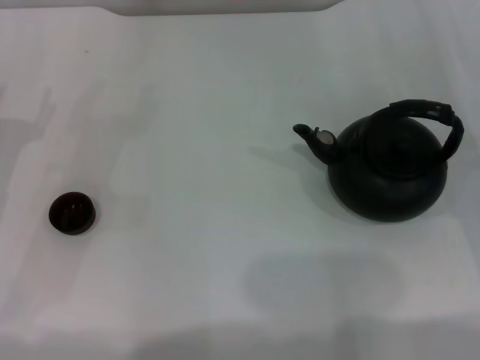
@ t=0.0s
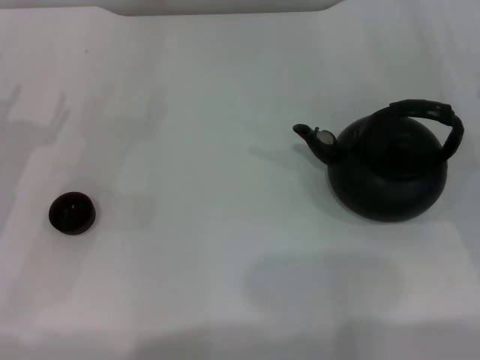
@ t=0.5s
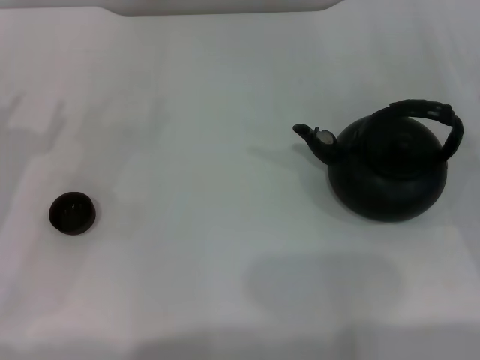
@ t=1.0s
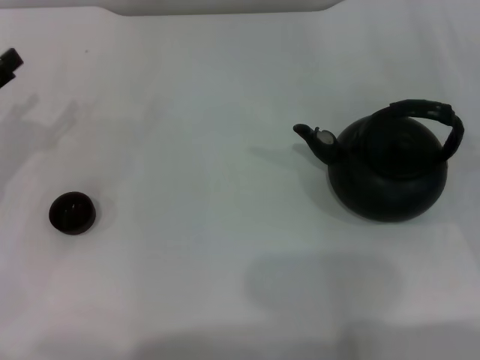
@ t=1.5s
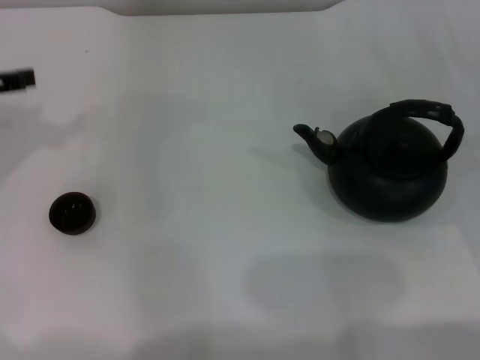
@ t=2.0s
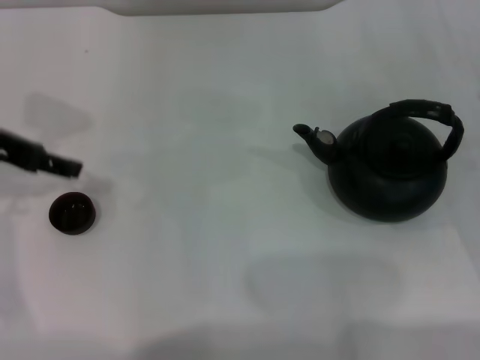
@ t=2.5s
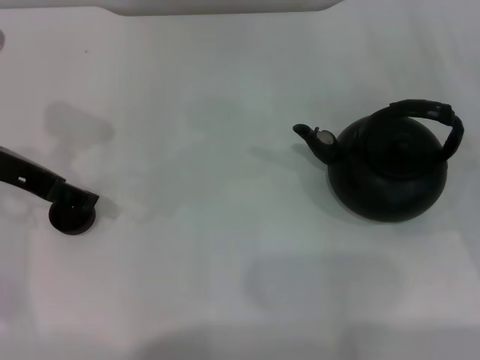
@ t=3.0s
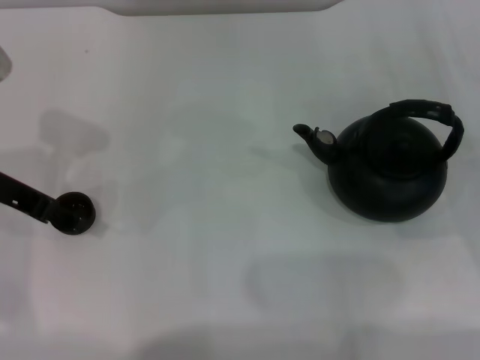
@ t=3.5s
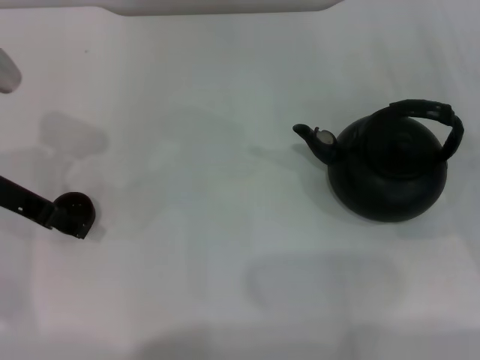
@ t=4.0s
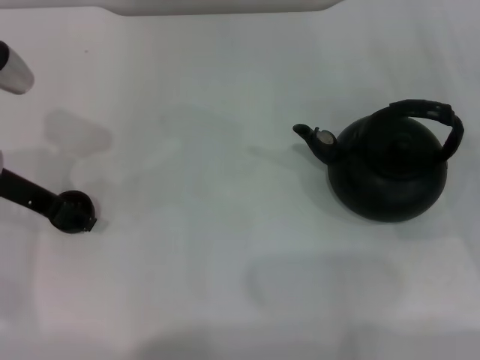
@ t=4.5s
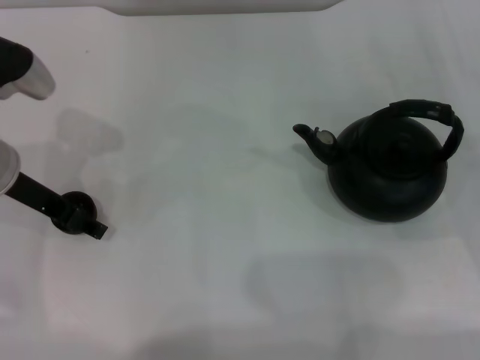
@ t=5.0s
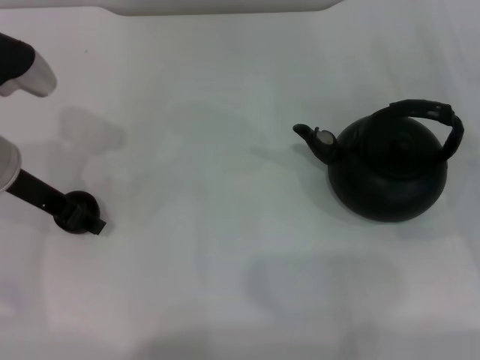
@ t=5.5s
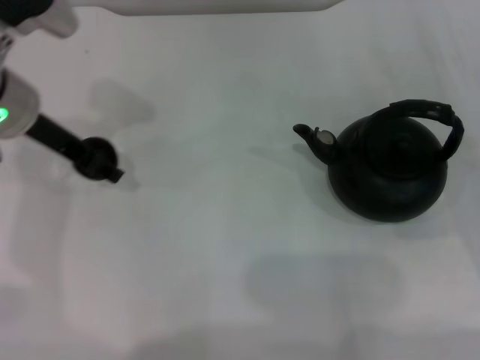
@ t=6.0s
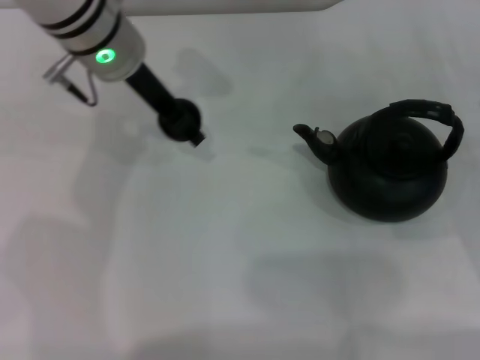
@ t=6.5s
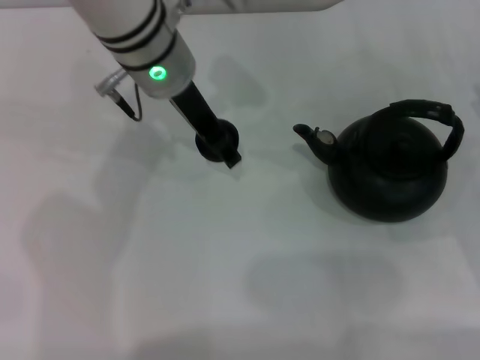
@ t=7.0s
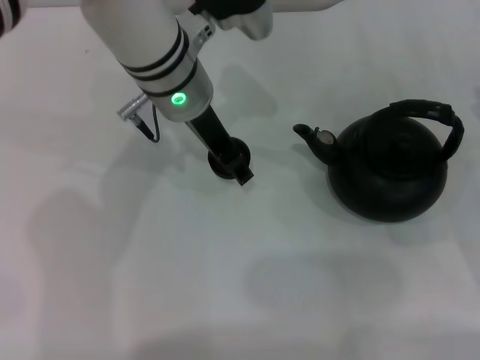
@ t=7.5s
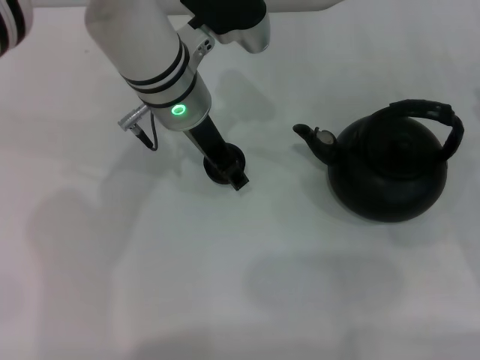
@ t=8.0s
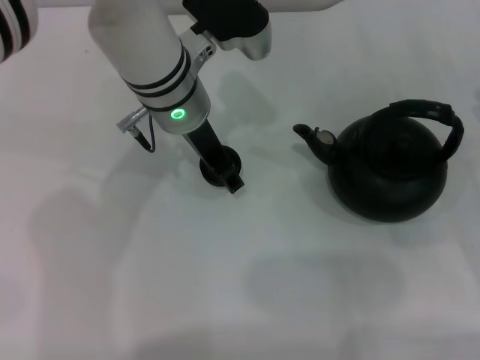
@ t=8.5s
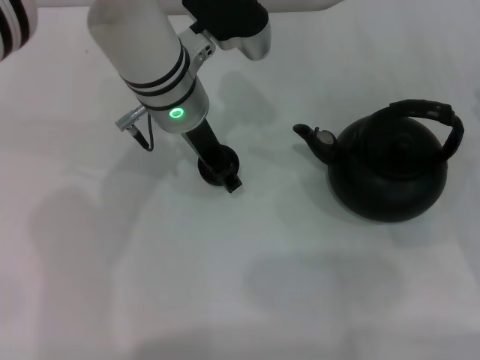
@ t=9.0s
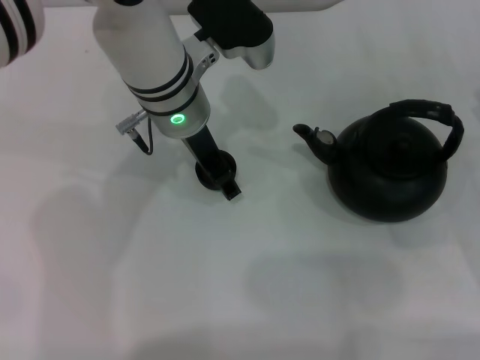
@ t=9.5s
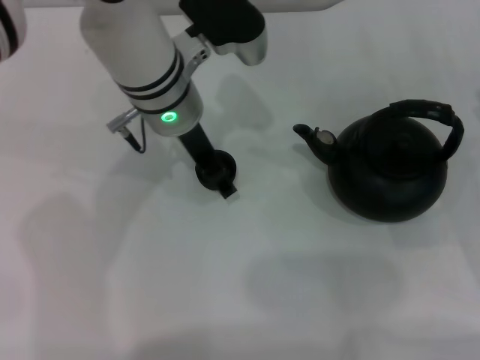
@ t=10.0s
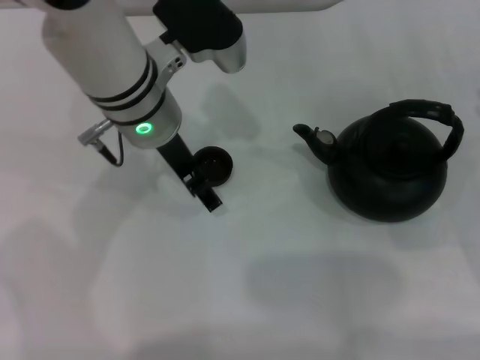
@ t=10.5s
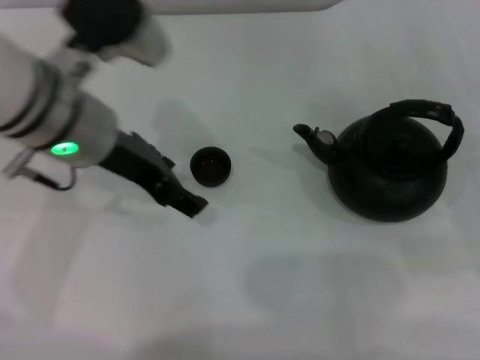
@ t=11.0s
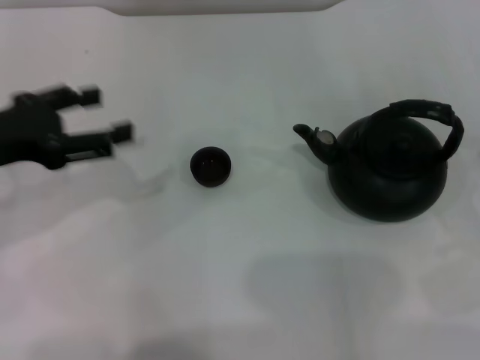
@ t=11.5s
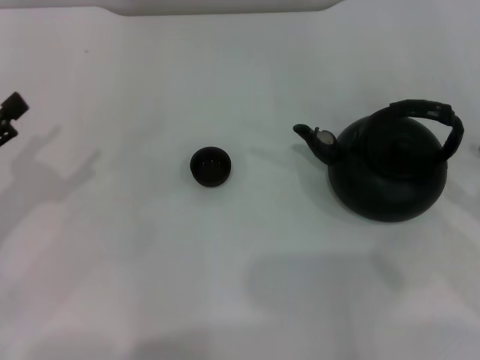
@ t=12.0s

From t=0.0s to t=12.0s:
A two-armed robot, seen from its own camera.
Task of the whole recording: Grasp the handle of the teapot with one hand and pour tea into the teacup.
Step, from t=0.0s to t=5.5s: Pick up the teacup with the left gripper.
Step, from t=6.5s to t=10.0s: Place the teacup in the center of view with the left gripper.
From t=2.0s to t=4.0s: The left gripper shifts about 10 cm to the right, and opens its fingers.
From t=4.0s to t=6.0s: The left gripper changes place by some 5 cm, and closes its fingers.
From t=6.0s to t=8.0s: The left gripper is displaced to the right by some 15 cm.
From t=8.0s to t=10.0s: The left gripper opens up.
From t=10.0s to t=12.0s: The right gripper heads backward and upward, covering approximately 10 cm. The left gripper shifts roughly 30 cm to the left and backward.

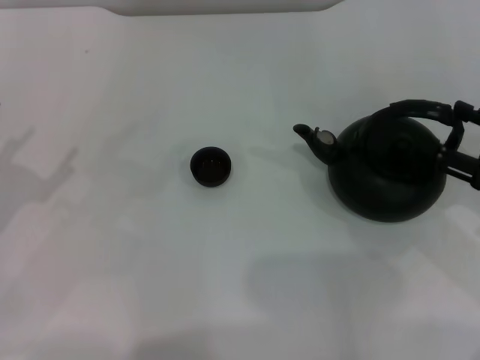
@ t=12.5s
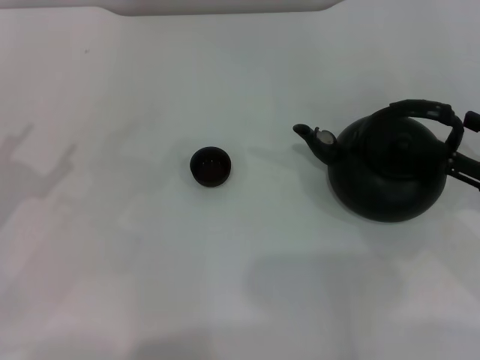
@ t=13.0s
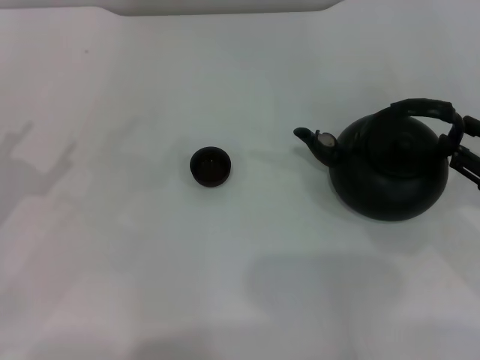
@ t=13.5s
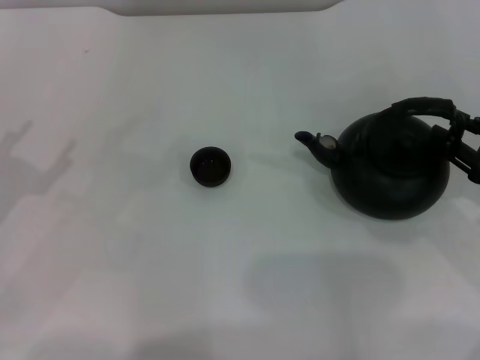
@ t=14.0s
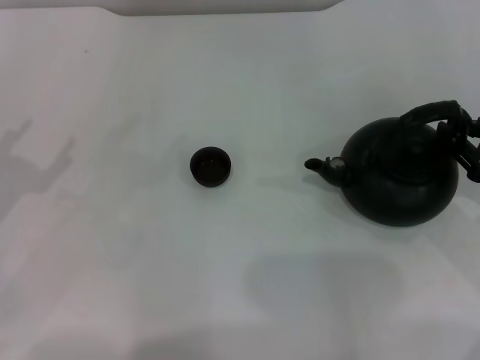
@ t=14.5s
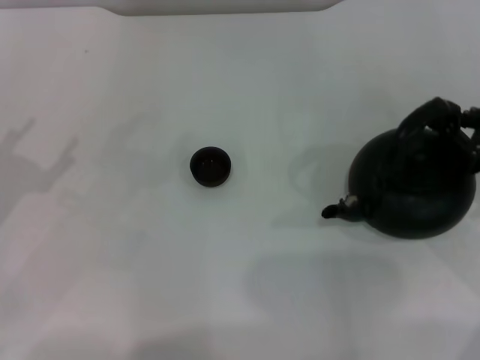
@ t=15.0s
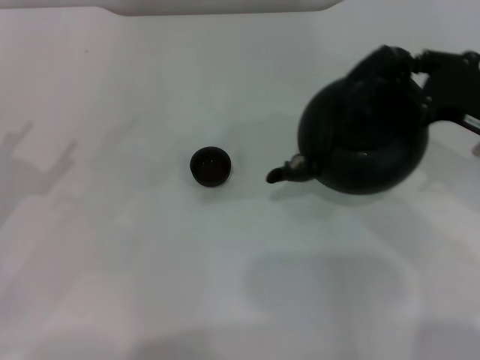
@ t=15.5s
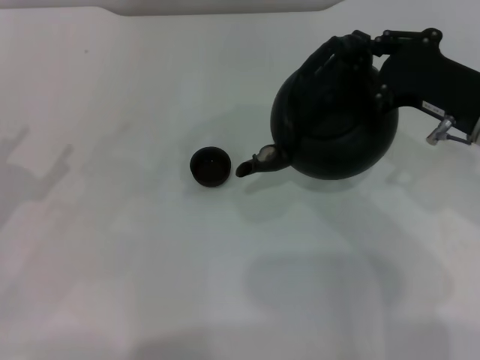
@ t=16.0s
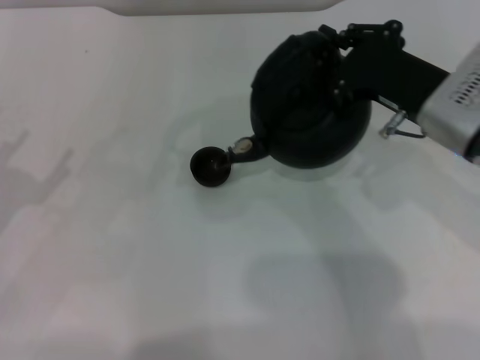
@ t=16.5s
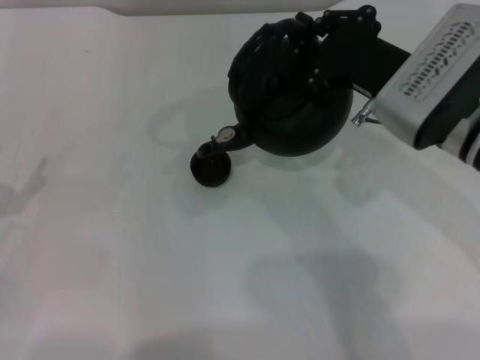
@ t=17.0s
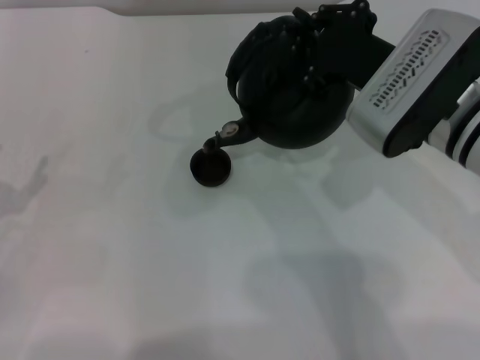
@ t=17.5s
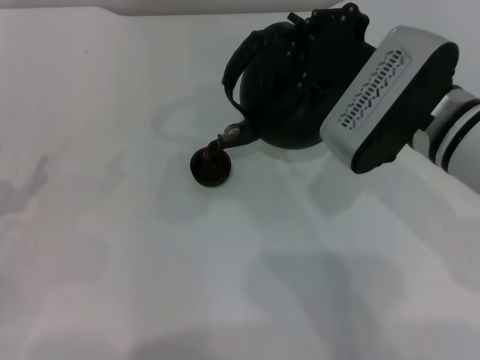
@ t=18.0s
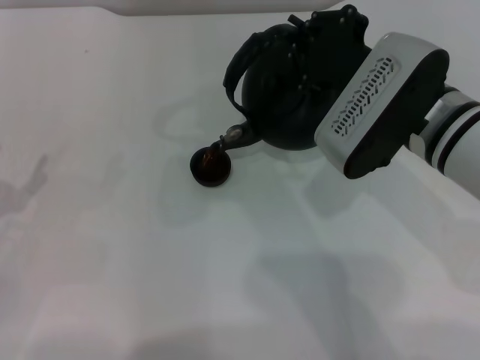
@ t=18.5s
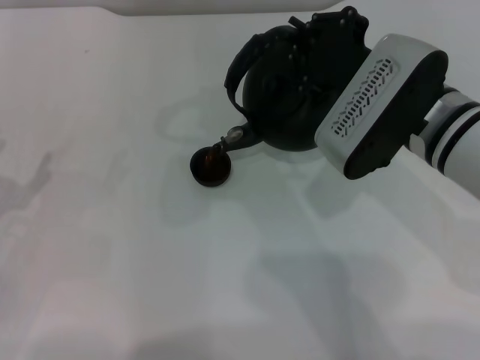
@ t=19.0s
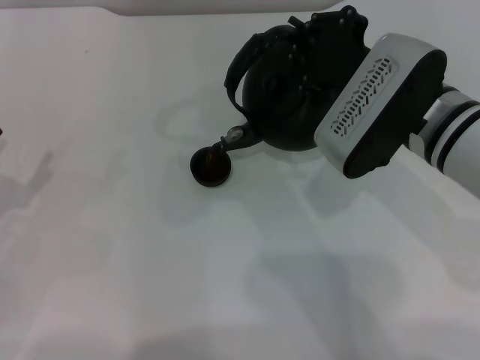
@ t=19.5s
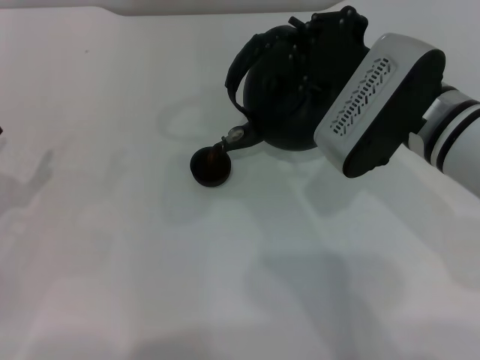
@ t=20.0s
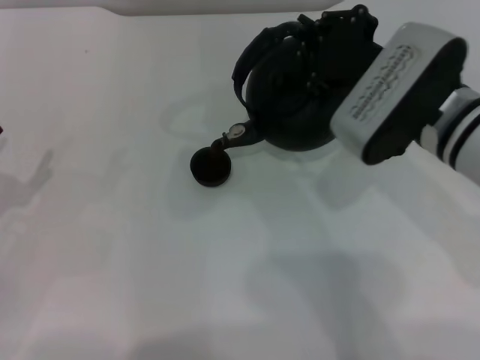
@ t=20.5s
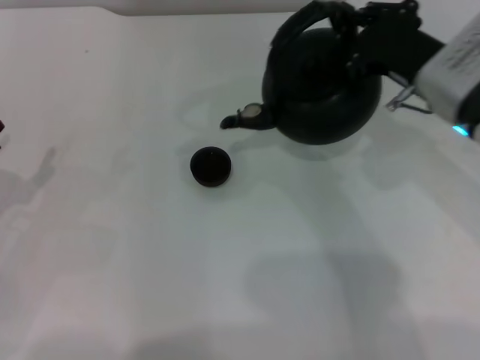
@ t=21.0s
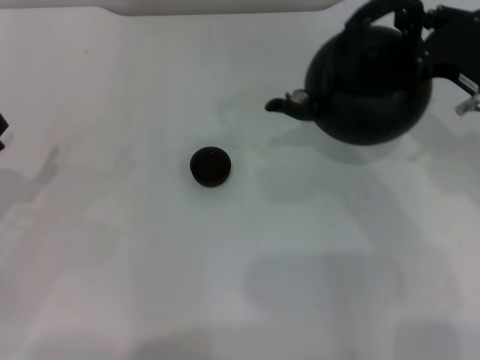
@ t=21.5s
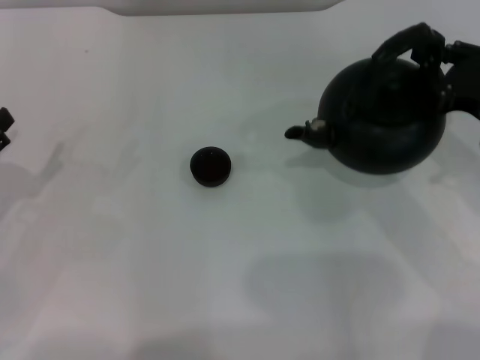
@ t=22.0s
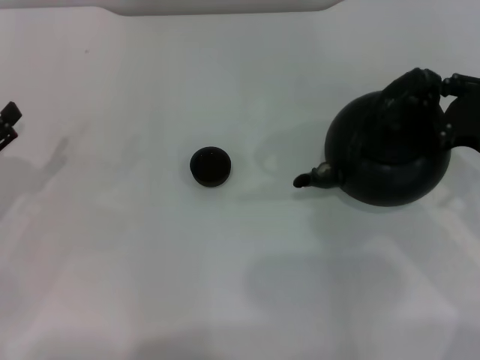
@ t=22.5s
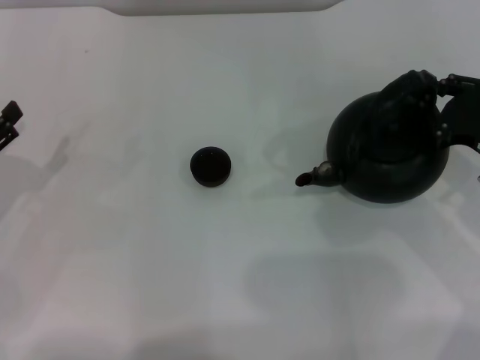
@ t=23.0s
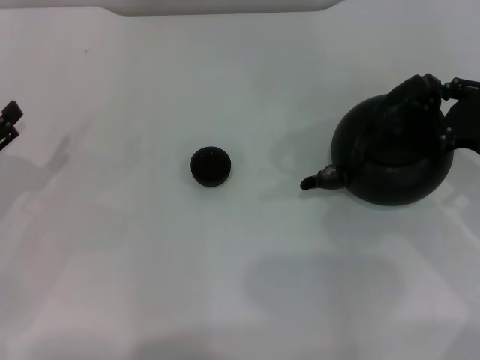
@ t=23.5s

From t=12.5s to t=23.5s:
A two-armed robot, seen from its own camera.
Task of the whole recording: Grasp the handle of the teapot with one hand and pour tea into the teacup.
Step, from t=12.5s to t=15.5s: Pick up the teapot with the right gripper.
Step, from t=16.0s to t=21.0s: Pour tea into the teacup with the right gripper.
From t=12.5s to t=14.5s: The right gripper closes up.
From t=14.5s to t=16.0s: The right gripper shifts some 10 cm to the left and upward.
From t=16.0s to t=18.0s: The right gripper travels to the left by approximately 10 cm.
From t=18.0s to t=20.0s: Both grippers stay put.
From t=20.0s to t=21.5s: The right gripper travels to the right by roughly 10 cm.
From t=21.5s to t=23.5s: The right gripper shifts about 5 cm downward.

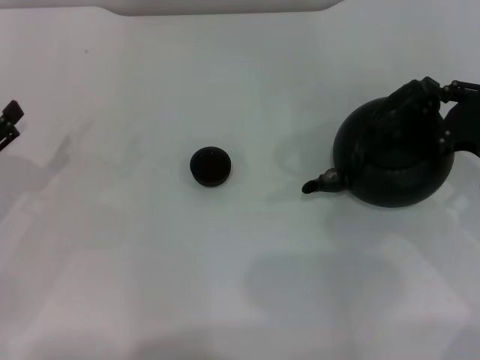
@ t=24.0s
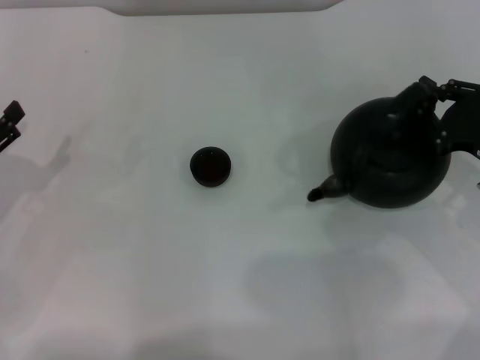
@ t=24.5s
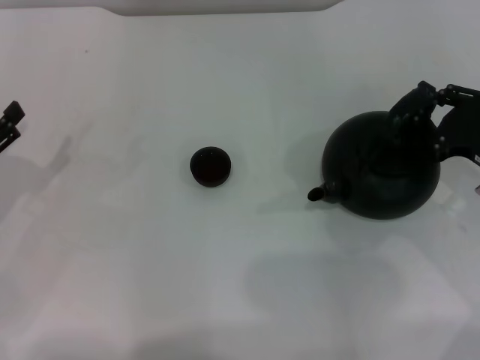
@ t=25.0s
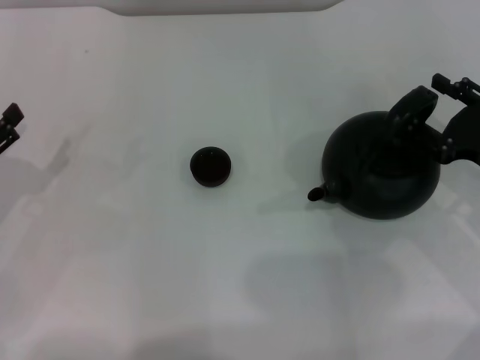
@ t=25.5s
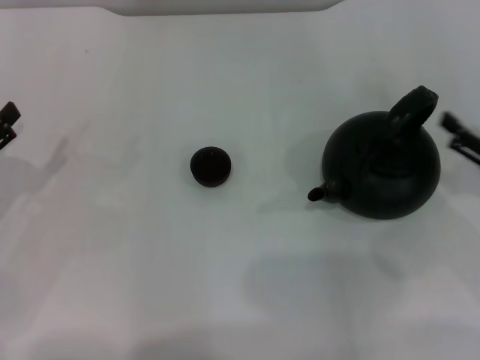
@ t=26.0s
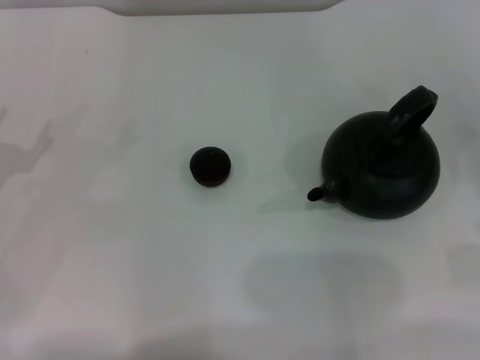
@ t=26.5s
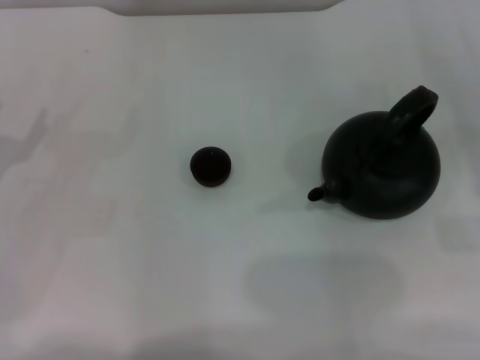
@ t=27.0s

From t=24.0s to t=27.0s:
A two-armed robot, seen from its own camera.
Task of the whole recording: Grasp the handle of the teapot with one hand and pour tea into the teacup.
Step, from t=24.0s to t=26.0s: Put down the teapot with the right gripper.
From t=24.0s to t=25.5s: The right gripper opens its fingers.
From t=25.5s to t=27.0s: The right gripper heads to the right, covering about 10 cm, and opens up.
